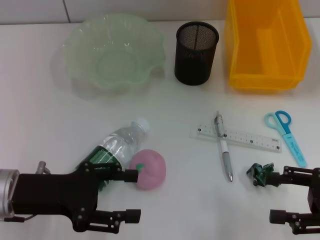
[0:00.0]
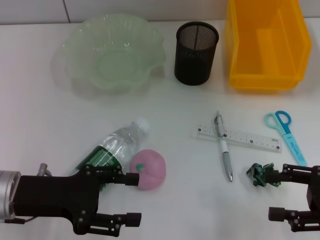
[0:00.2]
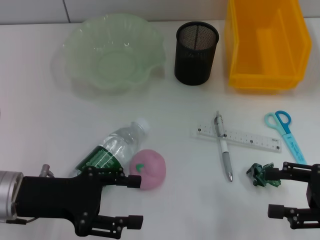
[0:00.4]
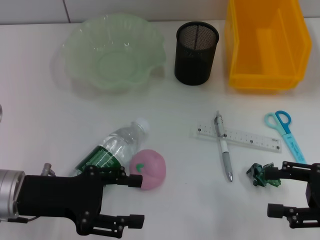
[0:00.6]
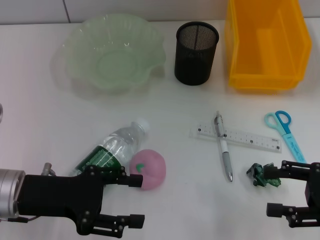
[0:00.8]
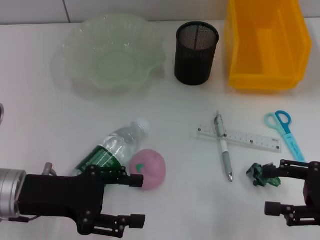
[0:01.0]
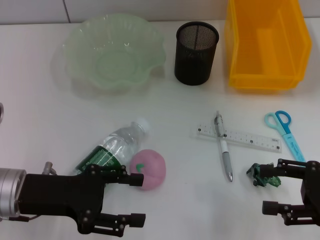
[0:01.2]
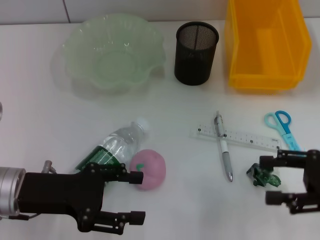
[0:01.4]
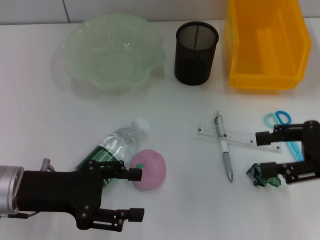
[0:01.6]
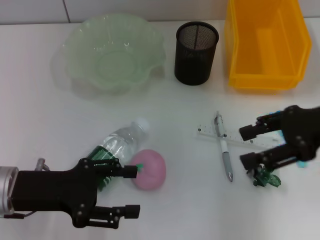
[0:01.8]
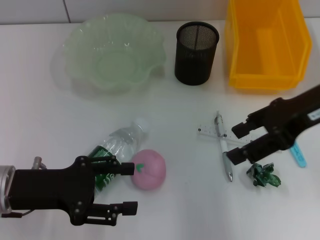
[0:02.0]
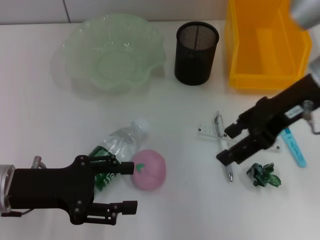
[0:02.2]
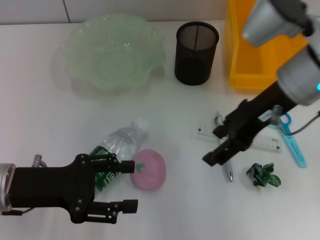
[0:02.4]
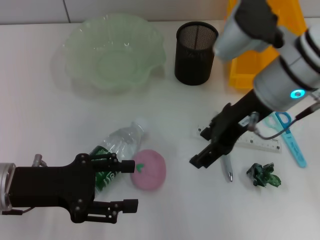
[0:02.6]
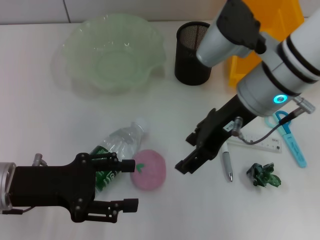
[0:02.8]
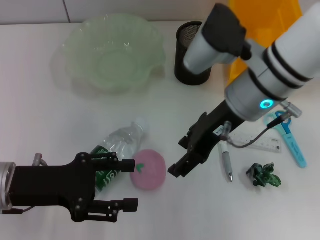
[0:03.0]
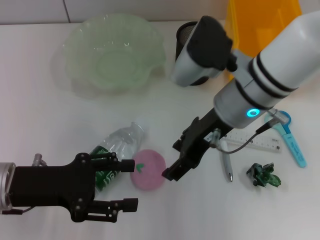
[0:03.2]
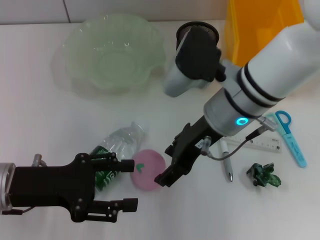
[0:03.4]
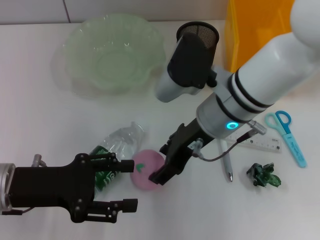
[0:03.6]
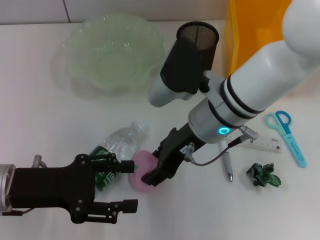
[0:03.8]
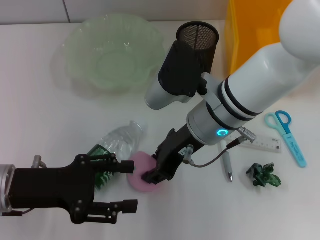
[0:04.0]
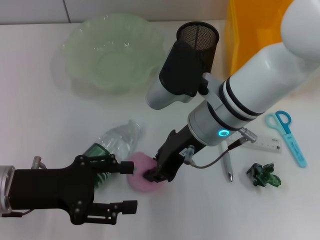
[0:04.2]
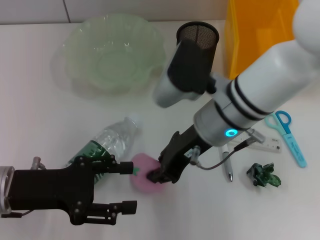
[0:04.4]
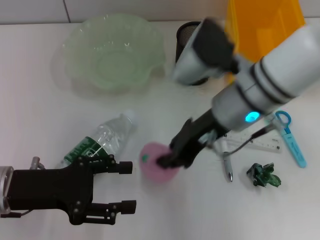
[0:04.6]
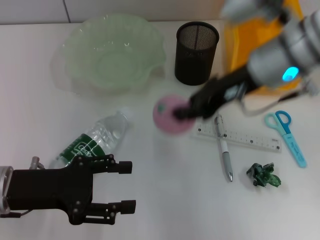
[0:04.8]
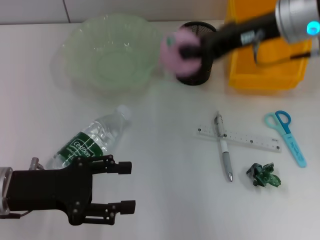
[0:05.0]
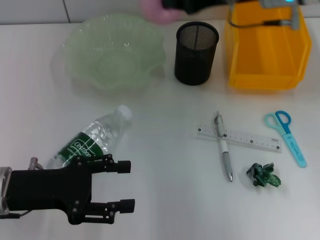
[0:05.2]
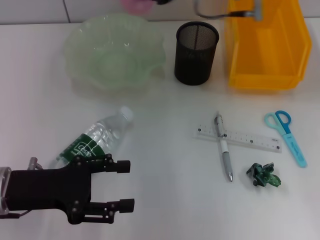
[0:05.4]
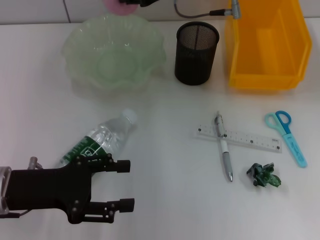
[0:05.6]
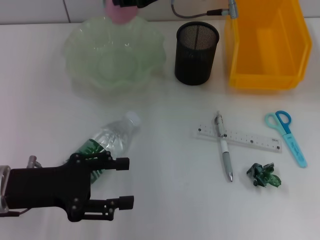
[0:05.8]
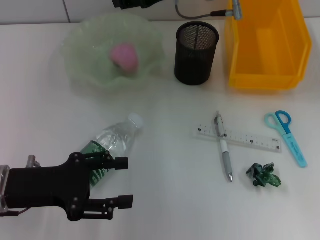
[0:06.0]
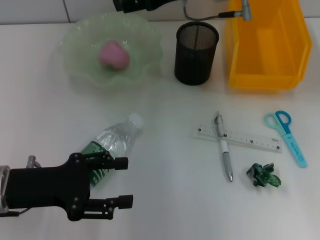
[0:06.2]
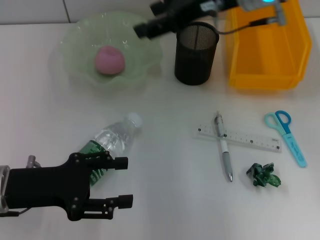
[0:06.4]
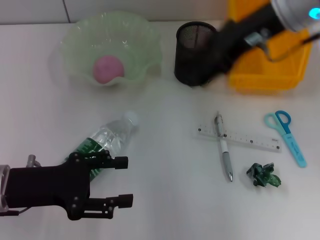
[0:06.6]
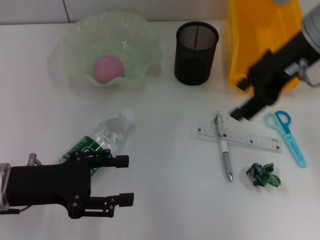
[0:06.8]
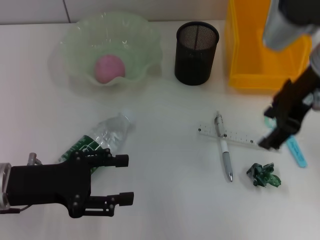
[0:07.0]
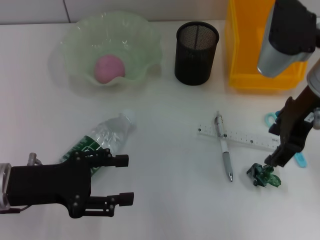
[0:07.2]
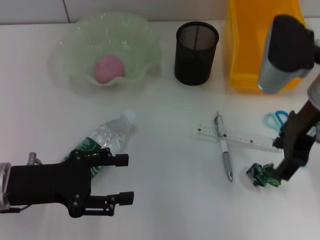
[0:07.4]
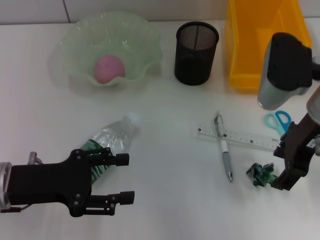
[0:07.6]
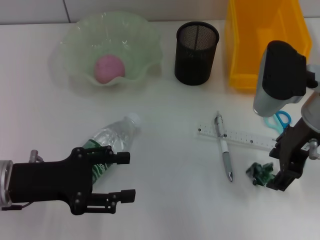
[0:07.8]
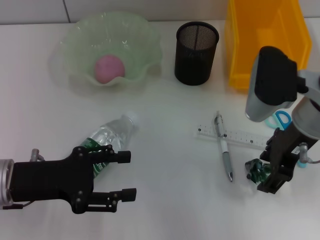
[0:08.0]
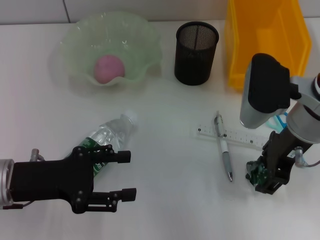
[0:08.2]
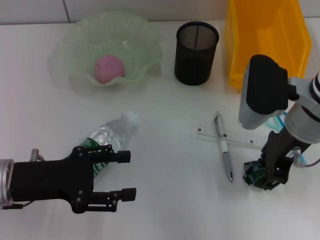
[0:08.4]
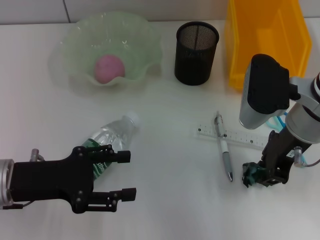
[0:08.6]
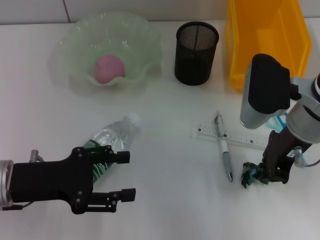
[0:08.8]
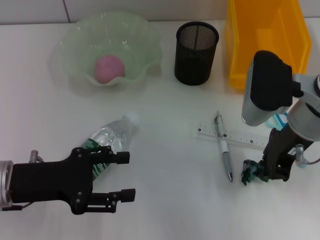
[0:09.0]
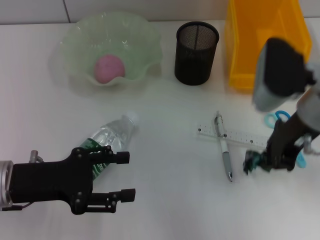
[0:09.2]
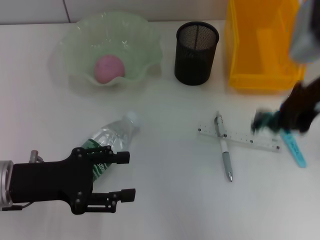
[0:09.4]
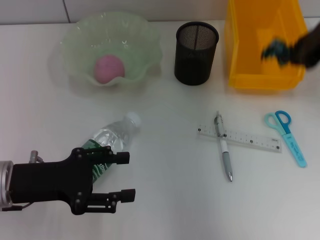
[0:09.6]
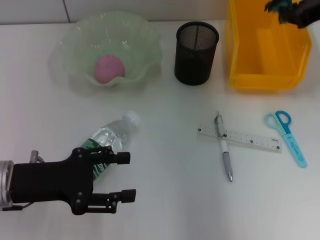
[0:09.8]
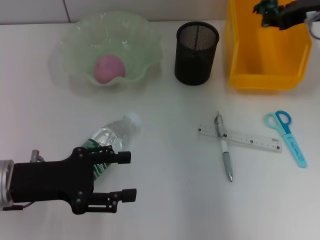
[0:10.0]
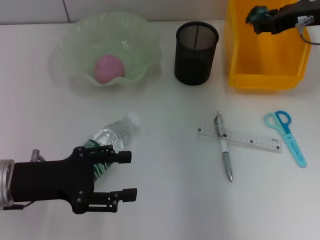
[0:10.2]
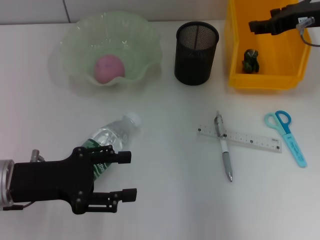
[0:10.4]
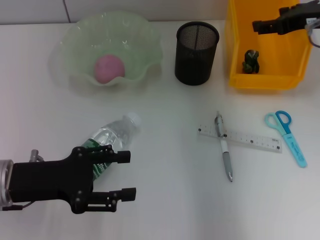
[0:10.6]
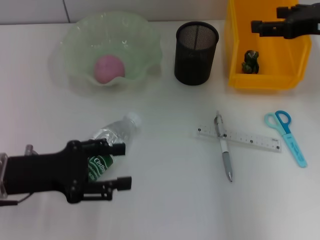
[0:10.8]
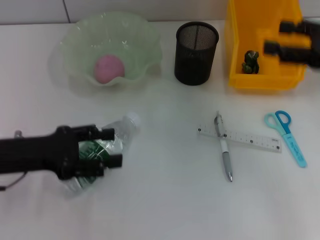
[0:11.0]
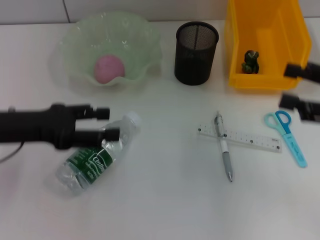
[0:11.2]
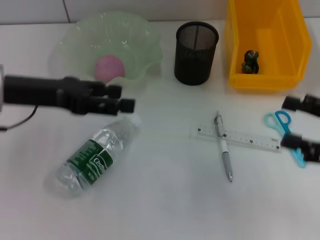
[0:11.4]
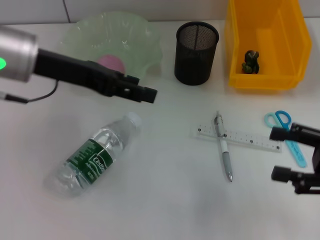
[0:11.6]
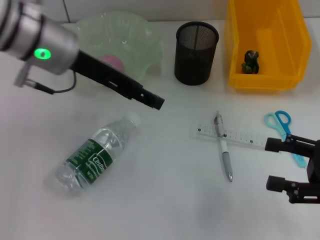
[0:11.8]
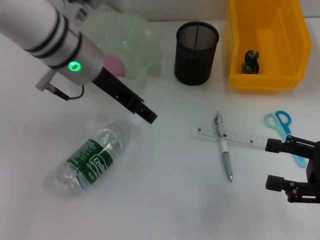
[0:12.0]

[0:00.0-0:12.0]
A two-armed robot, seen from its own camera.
Step, 0.0 to 4.2 s: Grab the peach with the right hand.
Step, 4.4 to 6.0 s: Place the peach into the fruit bowl with the right hand.
Step, 6.4 to 8.8 s: Grab the plastic with the right hand.
Step, 9.0 to 10.4 s: Place the plastic into the trash can with the right hand.
0.0 to 1.6 s: The right gripper is displaced upward and forward by approximately 10 cm.
1.6 to 3.0 s: The right gripper shifts some 20 cm to the left.
3.0 to 4.4 s: The right gripper closes up.
4.4 to 6.0 s: The right gripper moves forward and upward, roughly 15 cm.
6.0 to 7.6 s: The right gripper moves backward and to the right, roughly 15 cm.
7.6 to 9.0 s: The right gripper closes up.
9.0 to 10.4 s: The right gripper heads forward and to the right, covering roughly 10 cm, and opens its fingers.
10.4 to 12.0 s: The right gripper moves backward and downward, roughly 25 cm. Meanwhile the left gripper travels forward, to the right and upward by approximately 20 cm.

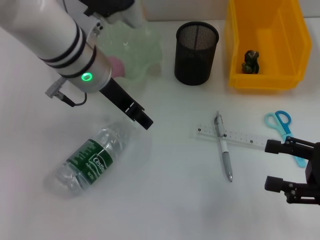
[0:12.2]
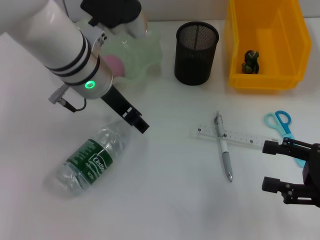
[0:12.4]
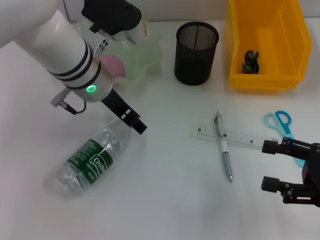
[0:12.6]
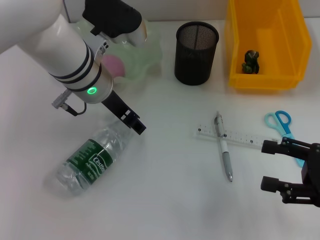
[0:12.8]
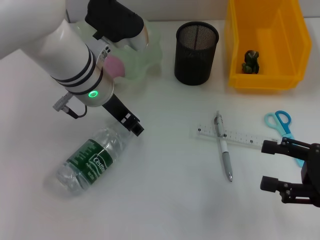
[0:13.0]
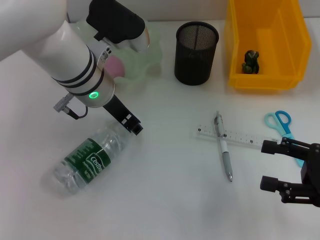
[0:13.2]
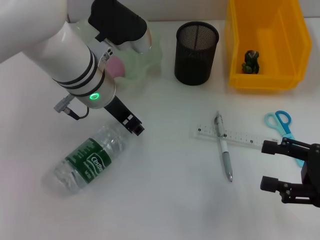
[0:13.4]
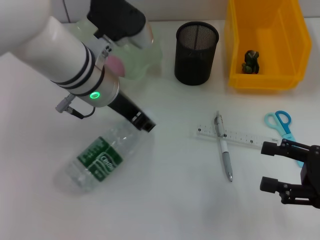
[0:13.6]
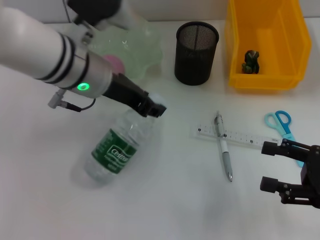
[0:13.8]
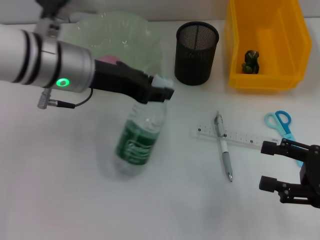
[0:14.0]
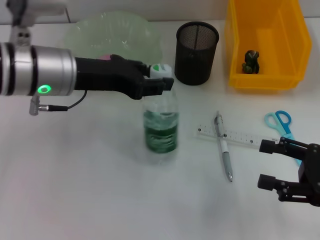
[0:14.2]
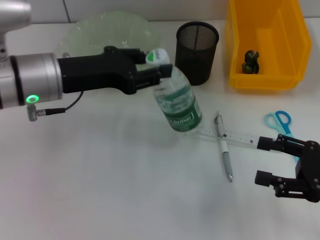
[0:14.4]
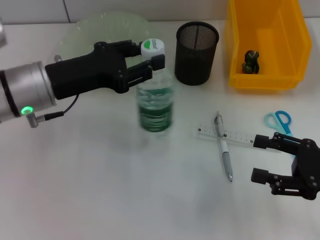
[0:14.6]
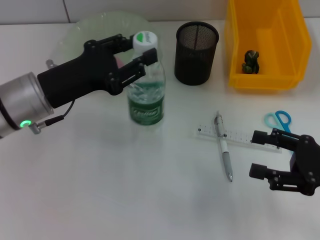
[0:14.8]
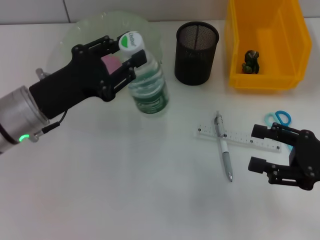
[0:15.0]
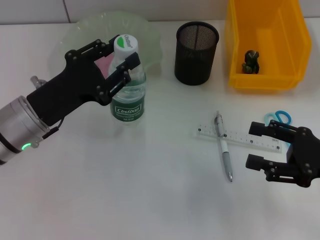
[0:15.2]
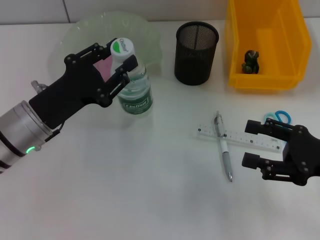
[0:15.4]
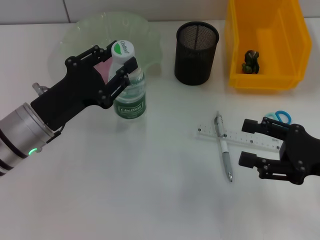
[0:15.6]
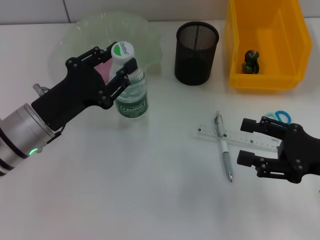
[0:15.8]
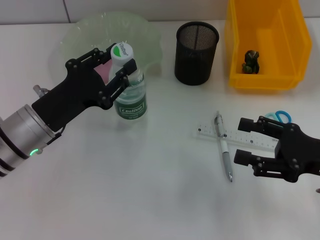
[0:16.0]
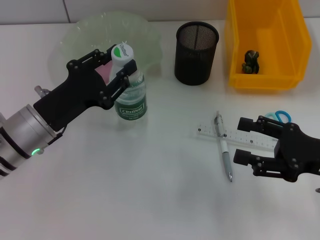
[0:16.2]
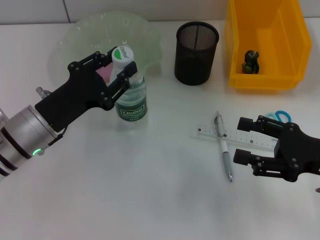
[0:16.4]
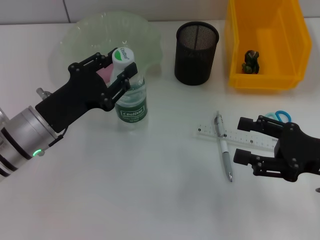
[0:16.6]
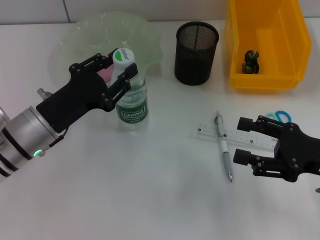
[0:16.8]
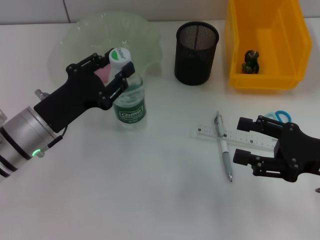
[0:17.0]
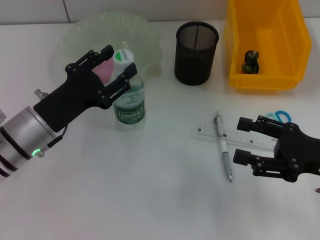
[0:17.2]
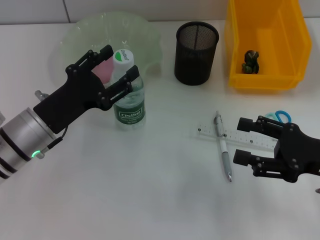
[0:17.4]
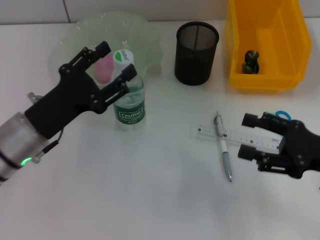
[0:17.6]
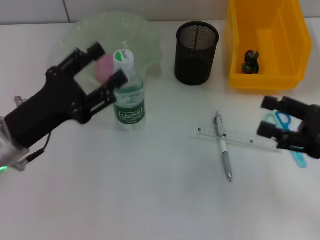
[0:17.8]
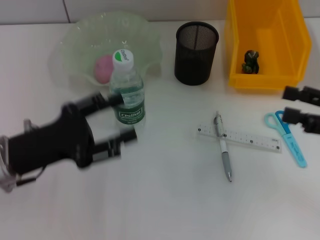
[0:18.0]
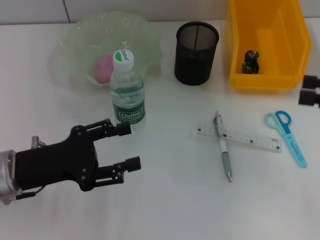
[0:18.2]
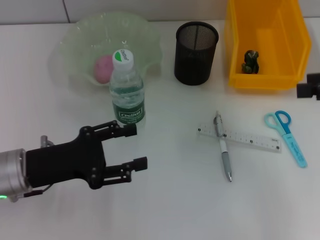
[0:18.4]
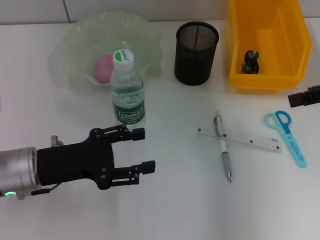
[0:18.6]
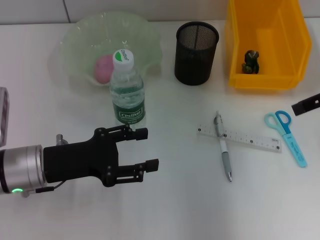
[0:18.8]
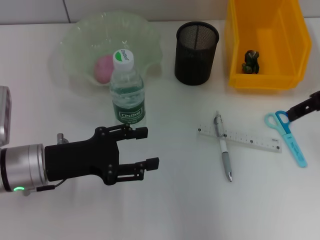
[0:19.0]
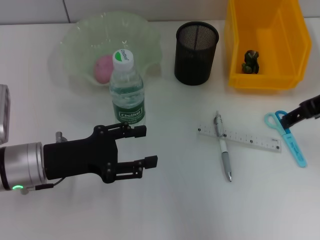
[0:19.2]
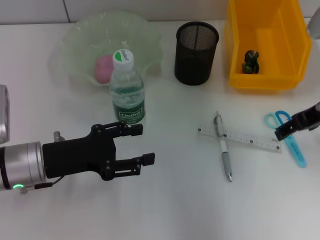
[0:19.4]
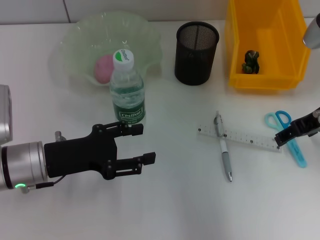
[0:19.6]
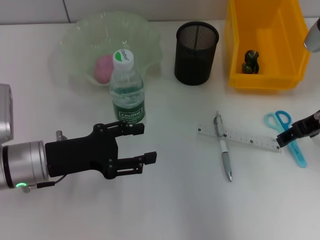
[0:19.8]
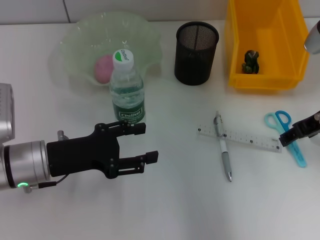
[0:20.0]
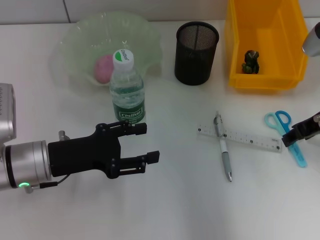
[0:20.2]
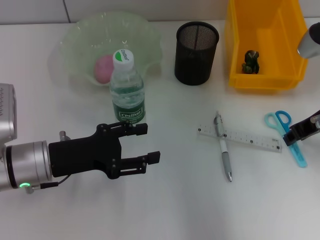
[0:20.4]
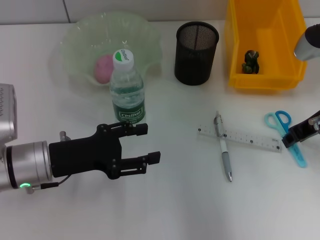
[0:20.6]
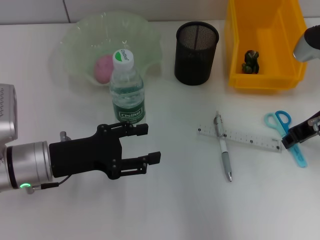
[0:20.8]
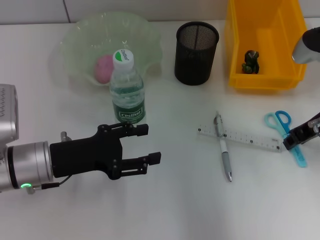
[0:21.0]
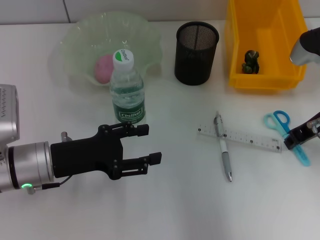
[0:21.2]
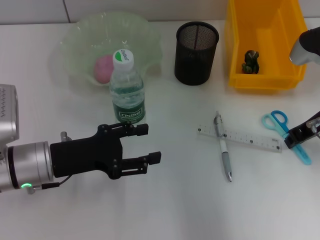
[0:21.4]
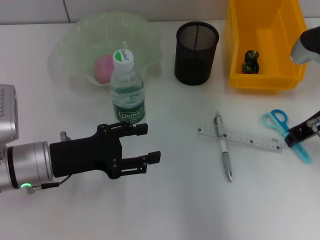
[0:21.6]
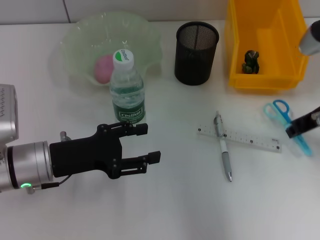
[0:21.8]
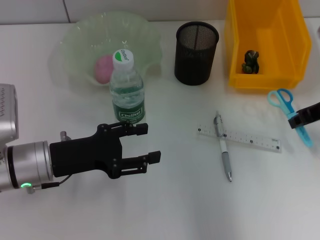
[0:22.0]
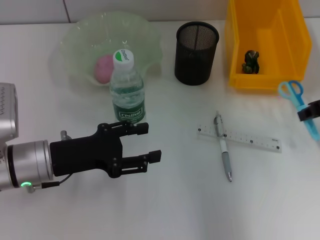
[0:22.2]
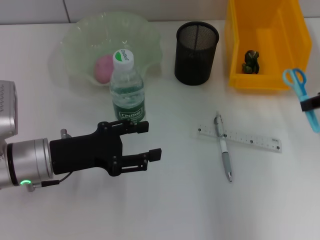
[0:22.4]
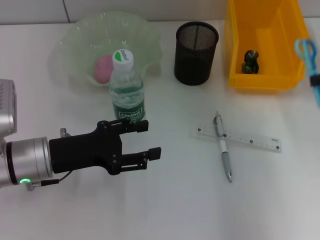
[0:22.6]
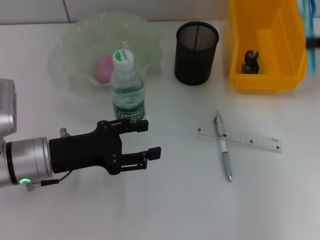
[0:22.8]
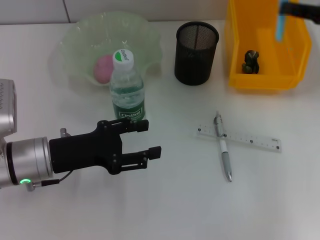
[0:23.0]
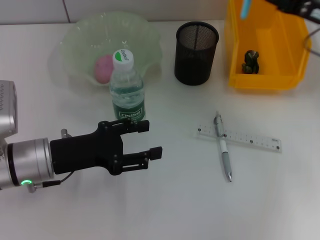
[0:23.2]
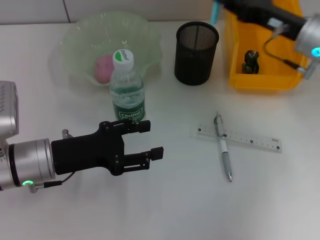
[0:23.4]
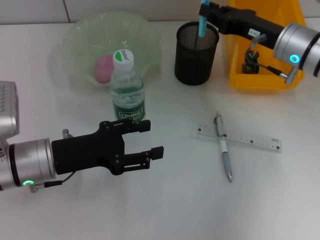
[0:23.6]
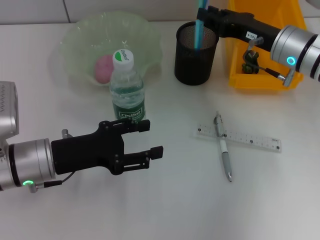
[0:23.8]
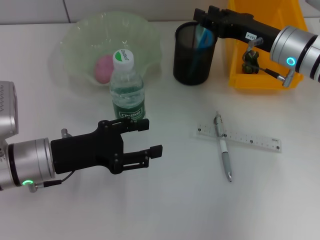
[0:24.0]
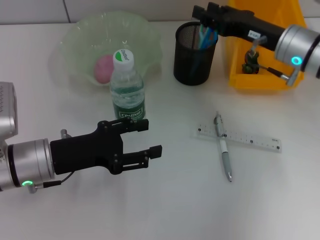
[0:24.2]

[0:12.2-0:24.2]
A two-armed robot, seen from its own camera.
Step, 13.6 to 17.0 s: Place the water bottle on the table with the left hand.
Step, 17.4 to 21.4 s: Grab the blue scissors with the left hand.
12.2 to 13.8 s: The left gripper closes.
13.8 to 15.2 s: The left gripper moves to the left, downward and backward, about 15 cm.
15.2 to 16.6 s: There are only small adjustments of the grippers.
16.6 to 18.2 s: The left gripper ends up approximately 5 cm from where it was, and opens its fingers. The right gripper heads upward and to the right, covering some 10 cm.
18.2 to 19.8 s: The right gripper moves to the left and forward, some 10 cm.
19.8 to 21.2 s: The right gripper closes.
21.2 to 22.6 s: The right gripper shifts roughly 10 cm to the right and upward.
22.6 to 24.2 s: The right gripper shifts about 15 cm to the left, downward and forward.
